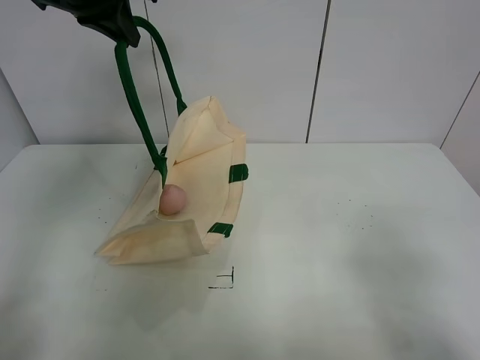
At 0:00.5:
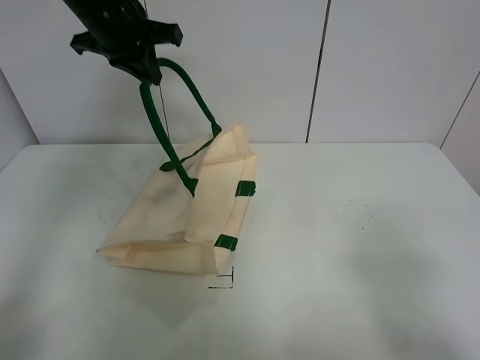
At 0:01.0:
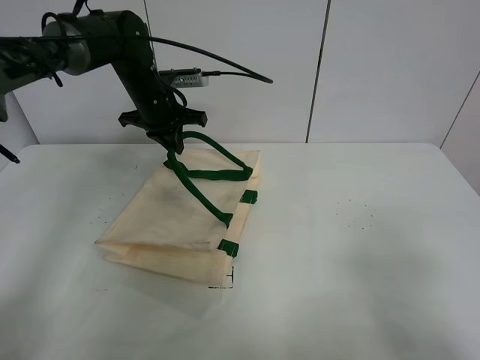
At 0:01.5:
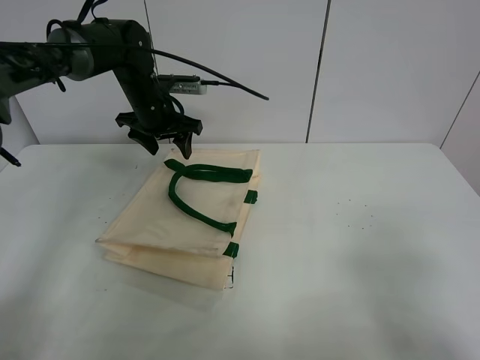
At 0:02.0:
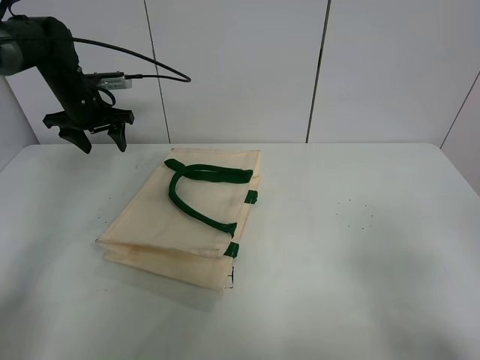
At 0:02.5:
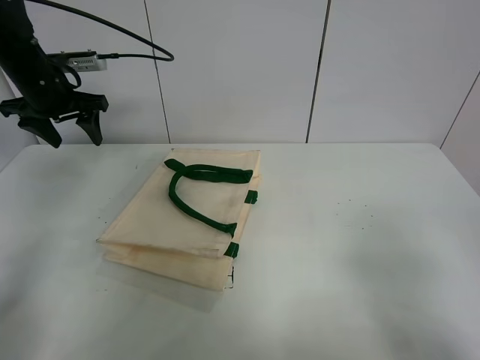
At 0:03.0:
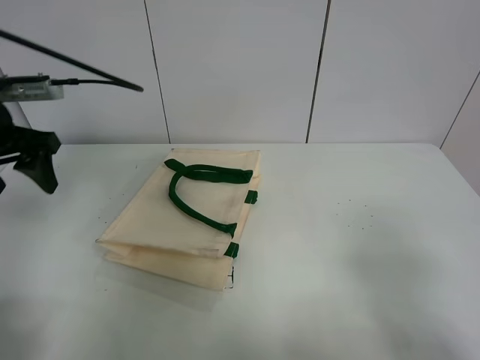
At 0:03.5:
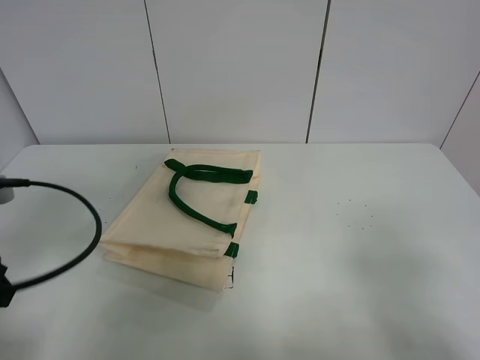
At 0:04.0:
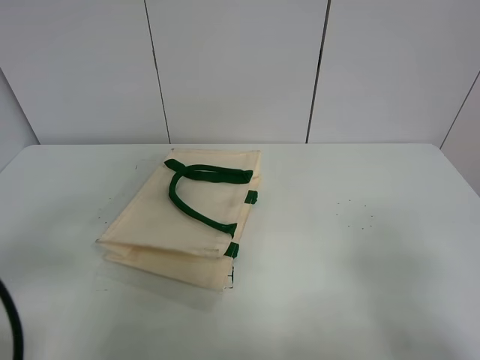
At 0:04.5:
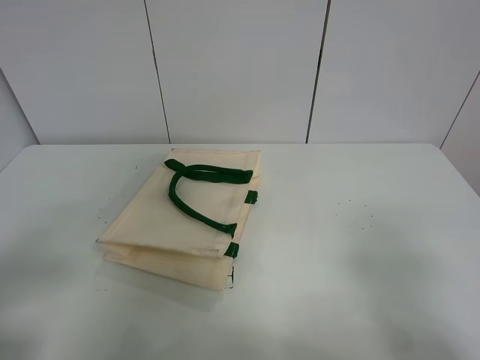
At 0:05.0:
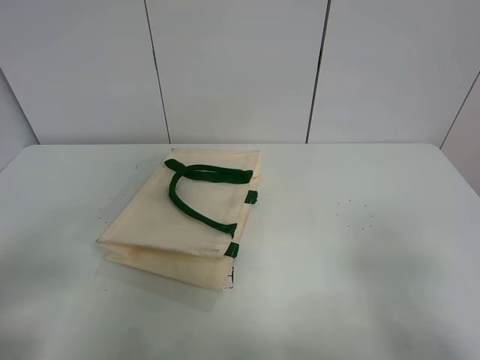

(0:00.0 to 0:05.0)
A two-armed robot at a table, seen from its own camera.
Task of the whole recording: open the white linen bag and put the peach in the bag.
0:00.0 - 0:02.5: The left gripper heads downward and to the left, covering approximately 20 cm, and opens.
0:02.5 - 0:05.0: The left gripper is displaced backward by some 40 cm.
